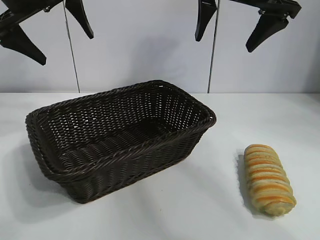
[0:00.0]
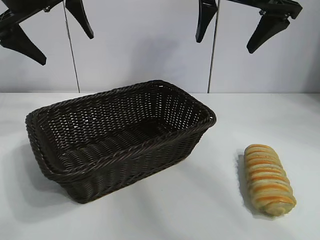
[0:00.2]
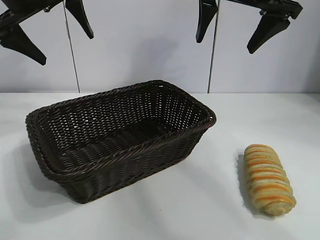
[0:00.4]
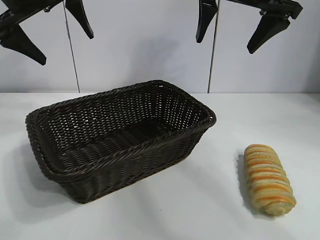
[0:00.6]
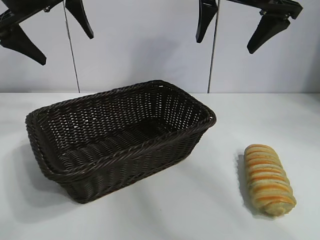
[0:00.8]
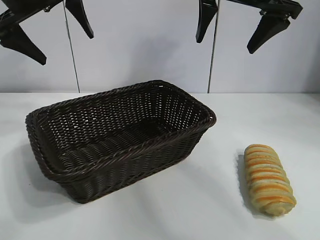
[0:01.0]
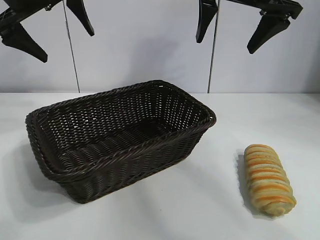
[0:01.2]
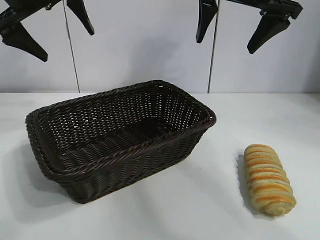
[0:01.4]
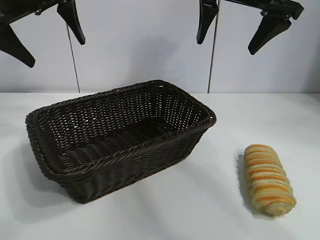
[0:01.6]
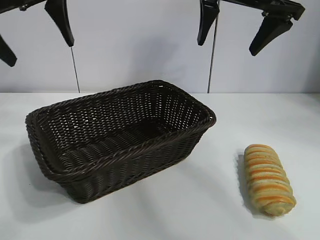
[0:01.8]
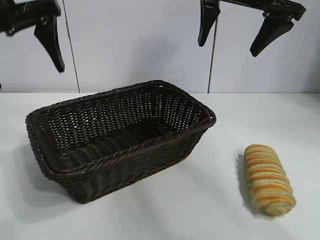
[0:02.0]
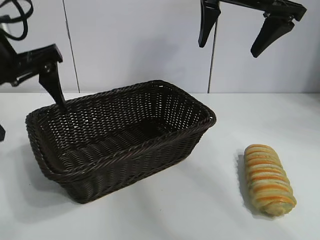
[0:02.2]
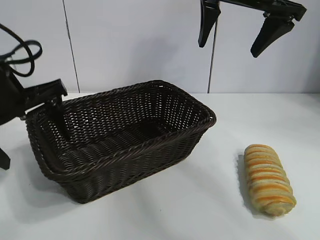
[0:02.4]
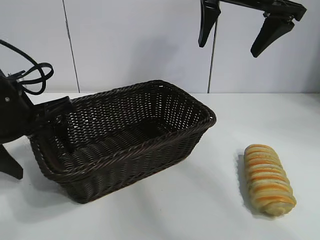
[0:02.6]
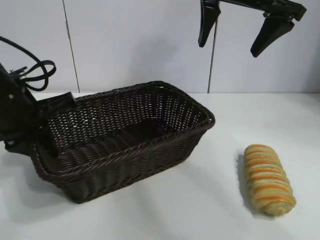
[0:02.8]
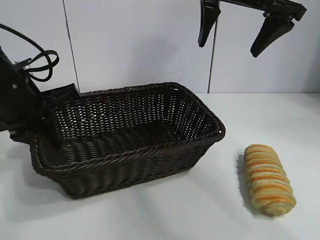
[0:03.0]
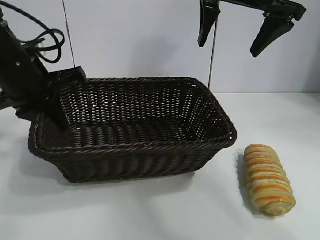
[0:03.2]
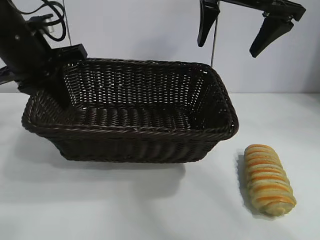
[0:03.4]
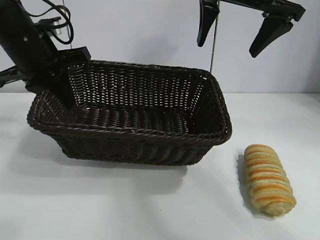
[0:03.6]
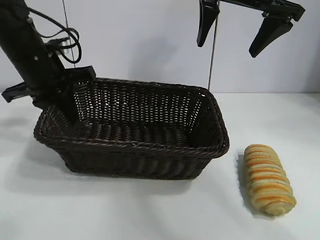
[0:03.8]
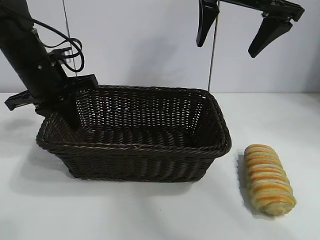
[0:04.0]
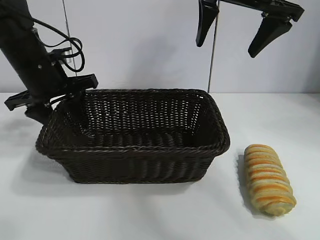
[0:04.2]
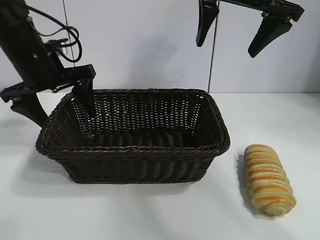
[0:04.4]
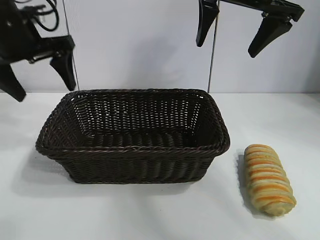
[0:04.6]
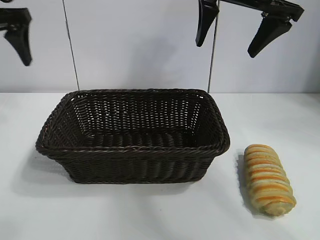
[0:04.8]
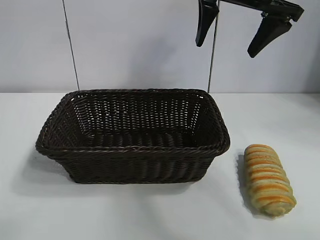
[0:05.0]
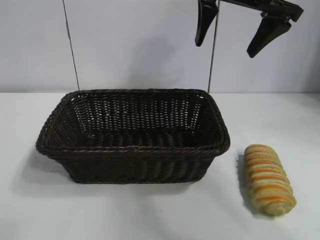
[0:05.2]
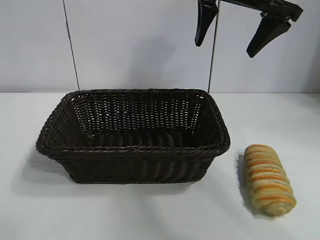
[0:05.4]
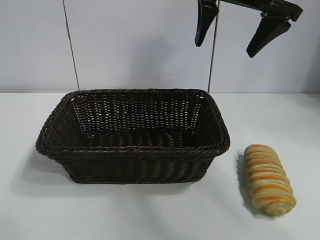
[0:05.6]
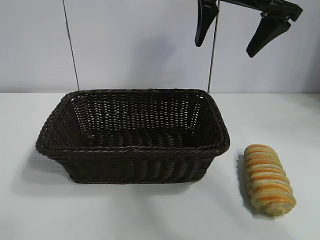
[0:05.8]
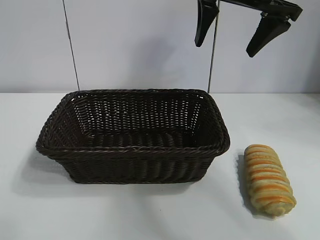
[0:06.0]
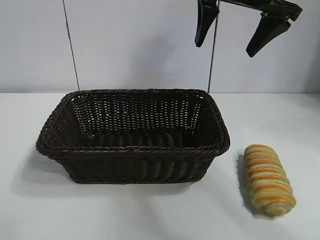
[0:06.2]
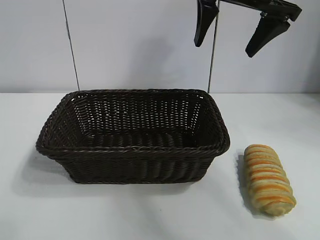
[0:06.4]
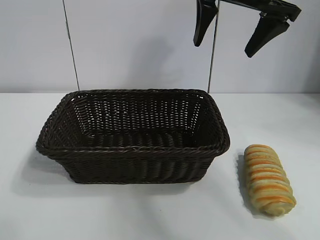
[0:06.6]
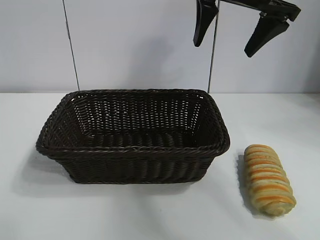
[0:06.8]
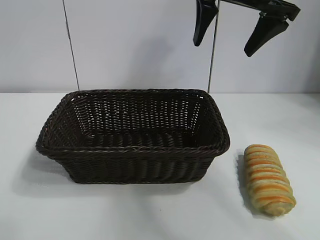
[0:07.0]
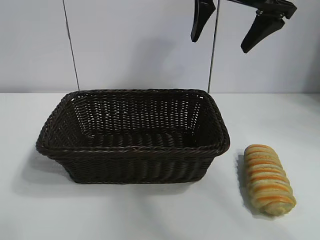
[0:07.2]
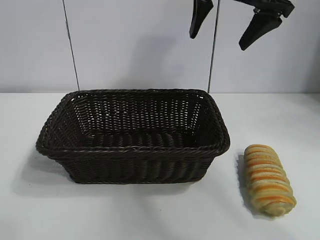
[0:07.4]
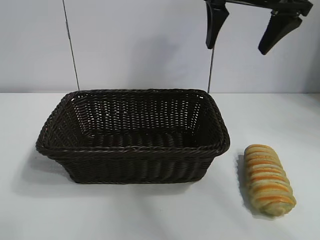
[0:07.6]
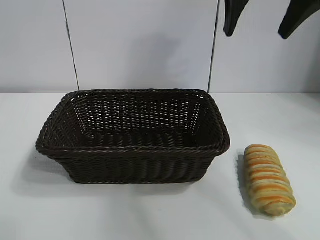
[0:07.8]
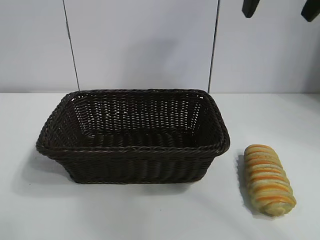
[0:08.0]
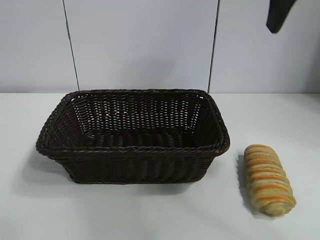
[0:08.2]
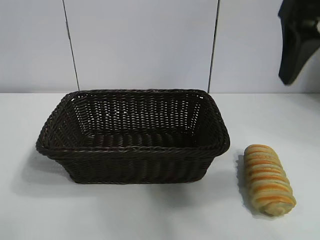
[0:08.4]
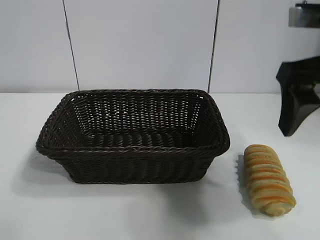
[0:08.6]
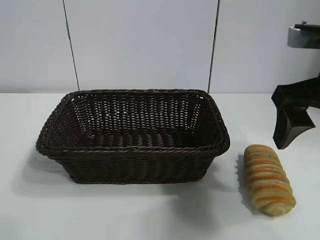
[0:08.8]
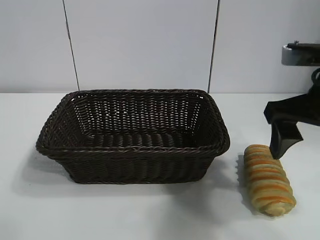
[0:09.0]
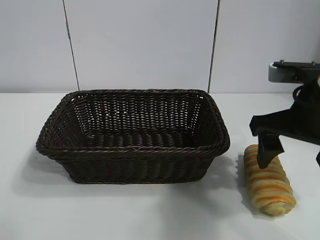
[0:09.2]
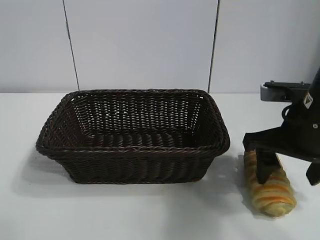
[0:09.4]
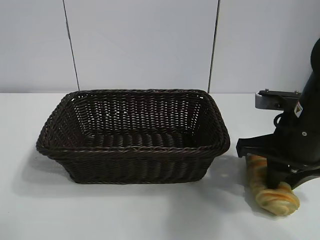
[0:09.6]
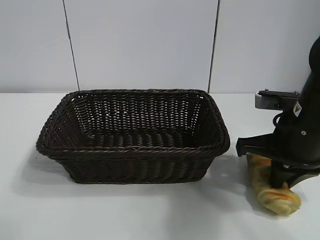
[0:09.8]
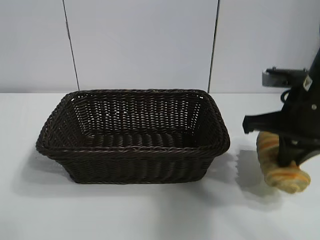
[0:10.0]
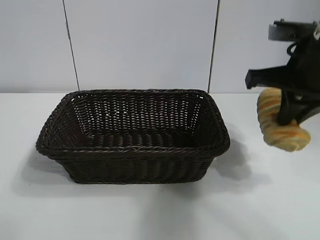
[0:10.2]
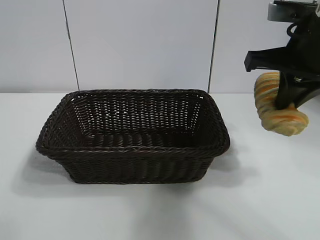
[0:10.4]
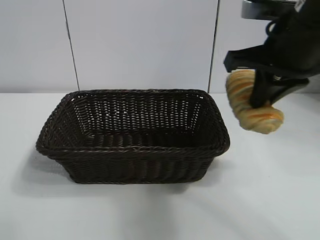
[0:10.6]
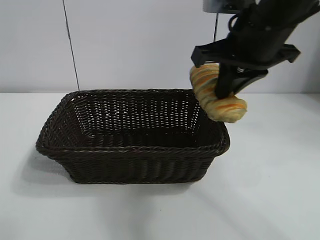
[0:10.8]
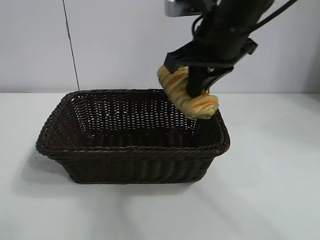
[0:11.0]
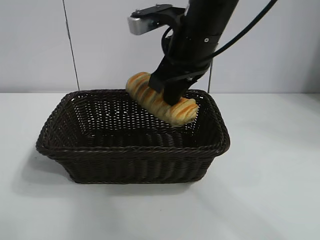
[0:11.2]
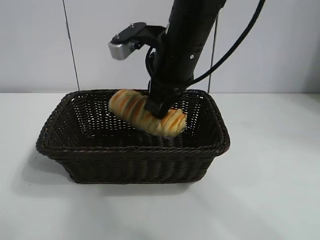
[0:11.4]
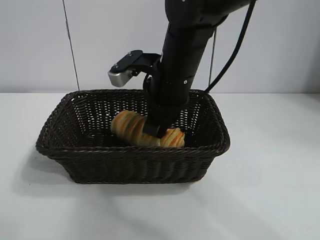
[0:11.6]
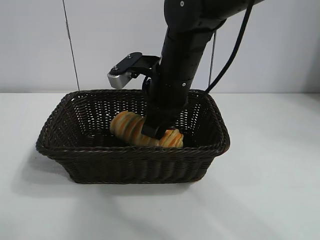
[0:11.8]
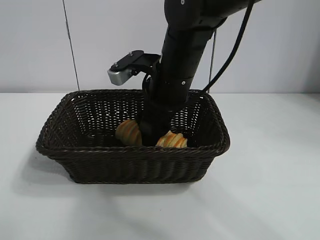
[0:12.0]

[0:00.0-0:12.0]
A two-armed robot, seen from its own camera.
Task of the whole recording: pick up the long bread and put it into the basket.
Step, 0:01.0 to 0:02.6: Grasp the basket with the left gripper.
Step, 0:03.0 to 0:04.2: Place the basket in the center of the table with the left gripper.
Step, 0:04.4 to 0:09.4: Grasp the long bread with right gripper.
Step, 0:09.6 to 0:12.0: Place the long bread in the basket with right gripper.
